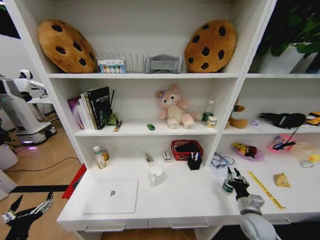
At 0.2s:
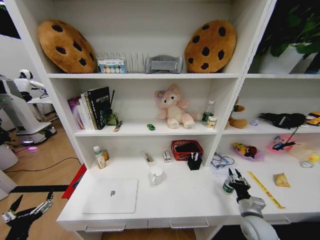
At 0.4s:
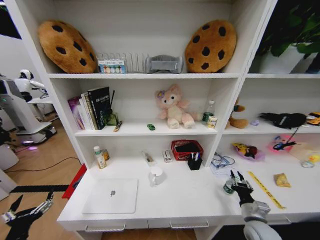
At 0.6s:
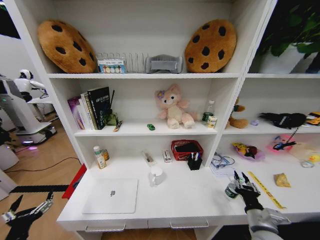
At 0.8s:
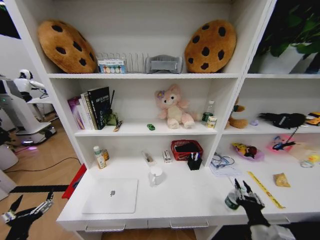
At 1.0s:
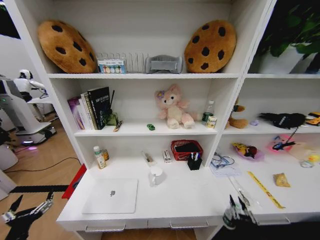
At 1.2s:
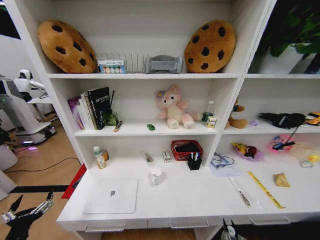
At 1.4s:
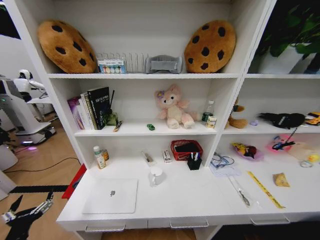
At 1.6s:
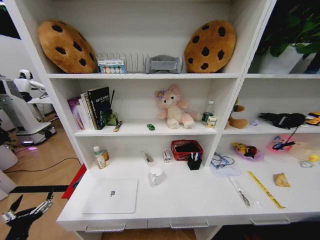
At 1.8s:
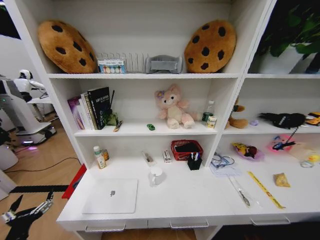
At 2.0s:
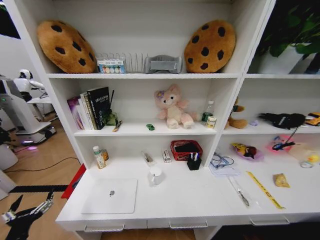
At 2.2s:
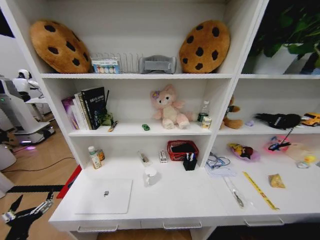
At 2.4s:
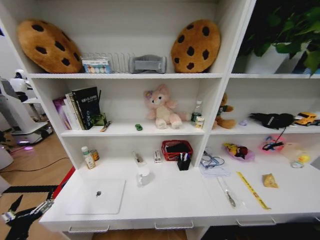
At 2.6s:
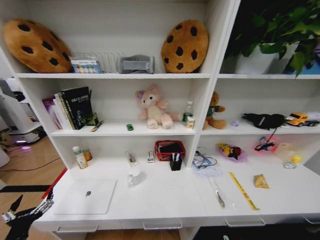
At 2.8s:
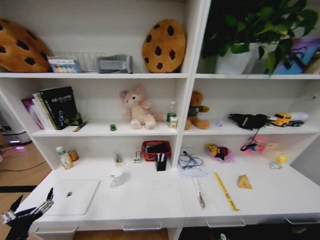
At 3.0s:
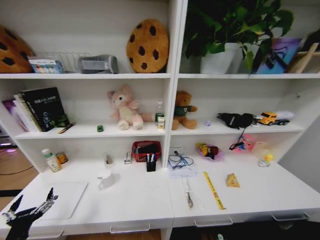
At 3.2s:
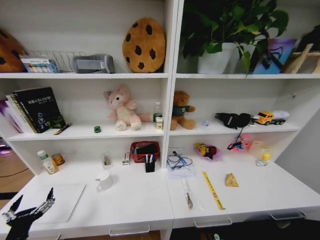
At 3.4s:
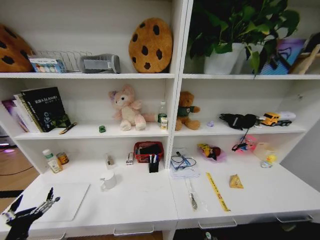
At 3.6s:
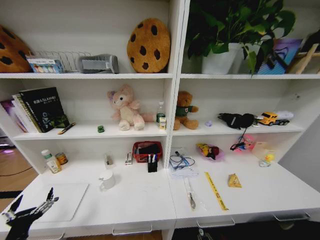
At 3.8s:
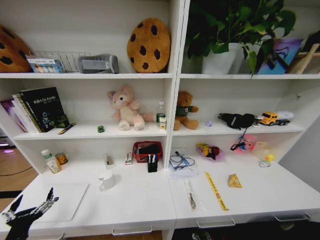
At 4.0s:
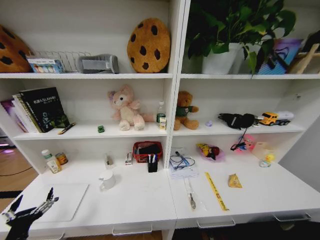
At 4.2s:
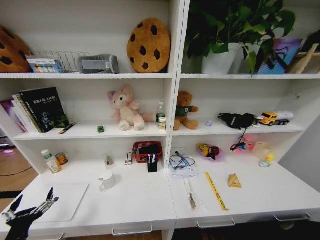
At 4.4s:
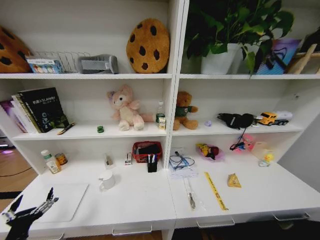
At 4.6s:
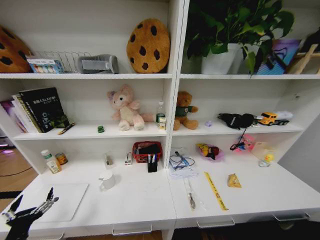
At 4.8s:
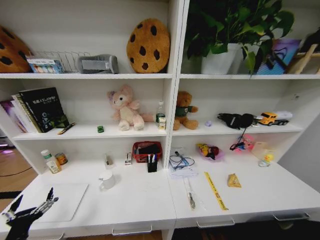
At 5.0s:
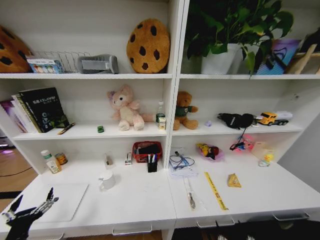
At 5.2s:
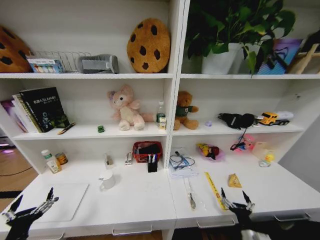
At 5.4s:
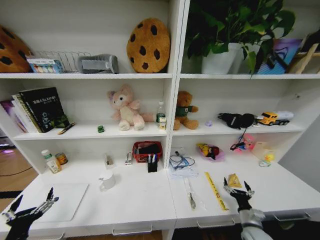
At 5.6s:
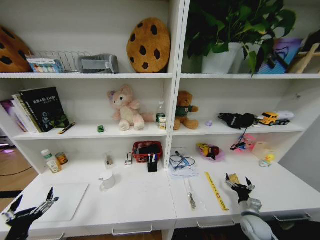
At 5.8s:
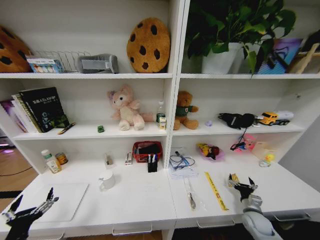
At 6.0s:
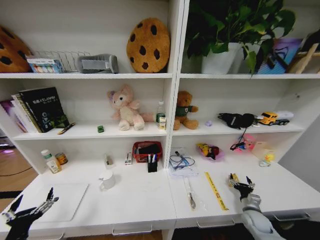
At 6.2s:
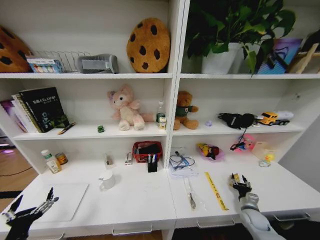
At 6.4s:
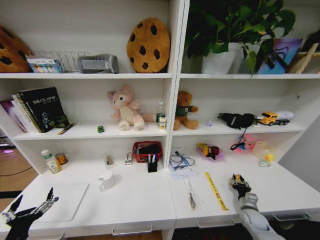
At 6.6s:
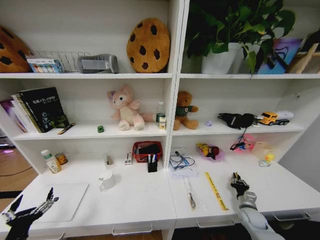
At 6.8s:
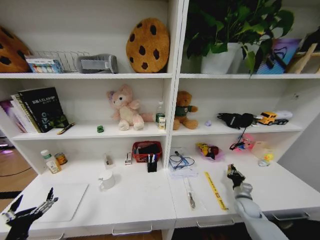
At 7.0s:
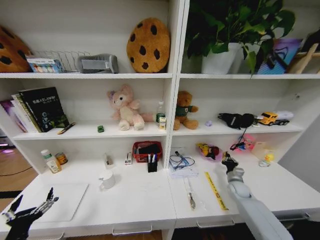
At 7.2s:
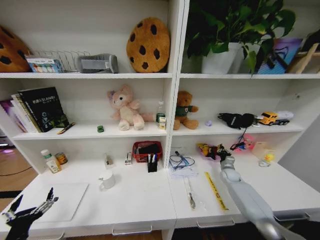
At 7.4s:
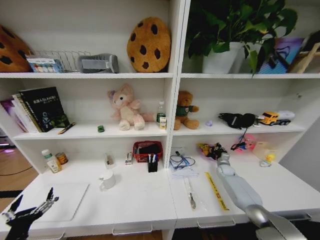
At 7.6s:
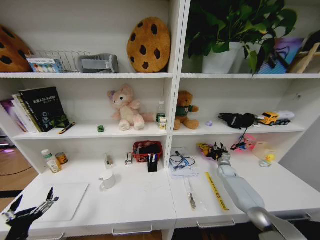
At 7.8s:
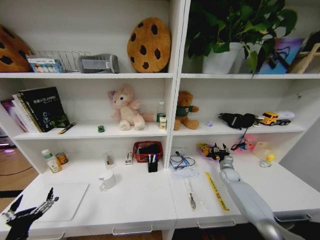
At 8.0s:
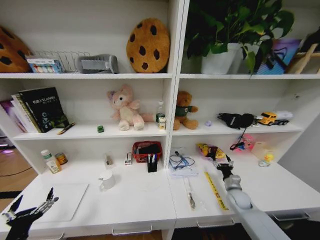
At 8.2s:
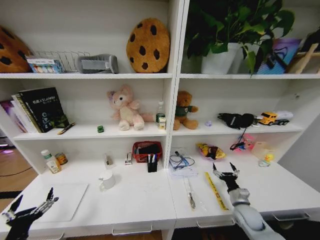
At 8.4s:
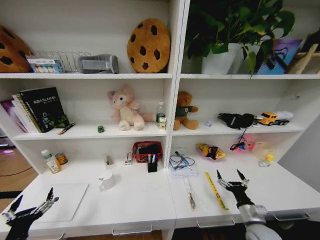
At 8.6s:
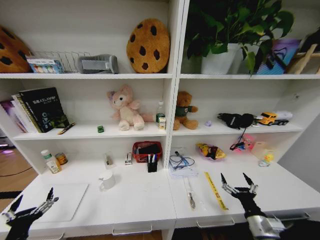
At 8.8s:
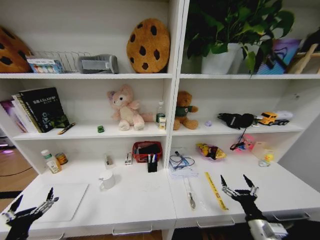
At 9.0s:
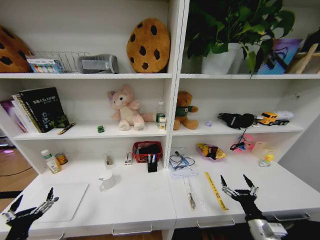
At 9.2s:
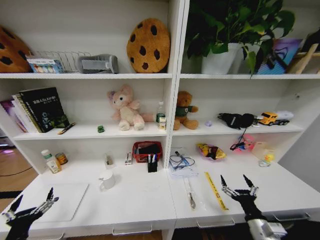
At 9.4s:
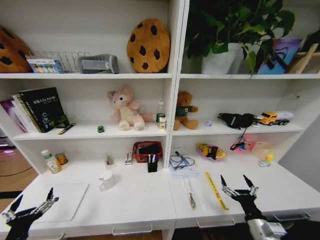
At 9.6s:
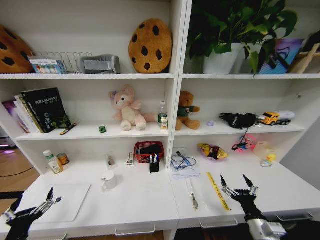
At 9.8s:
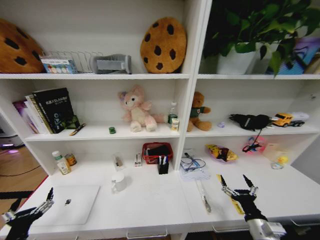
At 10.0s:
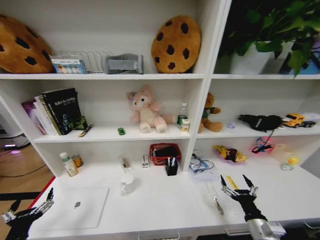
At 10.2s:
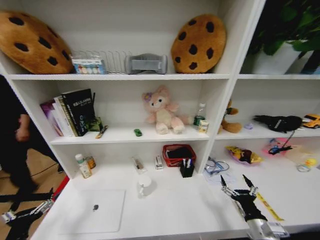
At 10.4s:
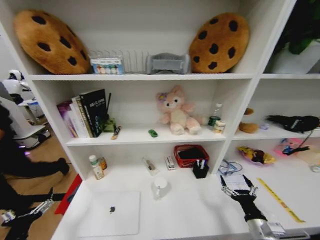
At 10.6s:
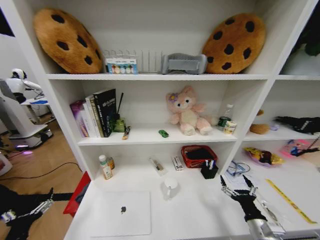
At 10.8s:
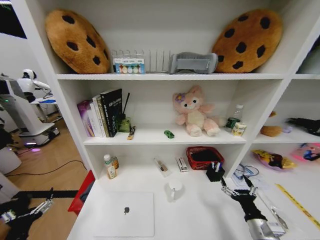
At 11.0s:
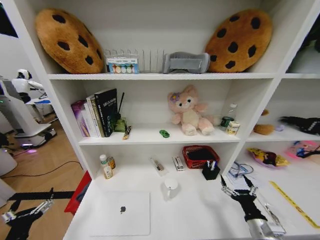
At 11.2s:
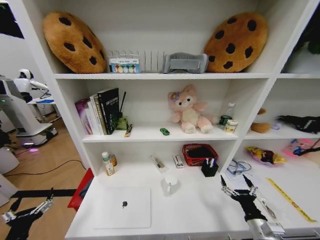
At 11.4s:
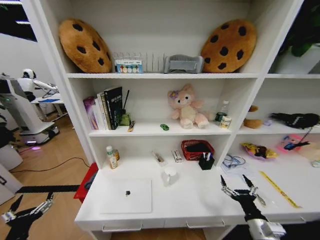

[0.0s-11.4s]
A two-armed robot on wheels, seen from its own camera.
Task of the whole recording: Organize the objects on the table.
0.0s to 1.4s: The right gripper goes roughly 30 cm backward and to the left.
1.4s to 2.8s: The right gripper goes about 25 cm downward and to the right.
2.8s to 4.2s: The right gripper changes place by about 5 cm, and opens.
4.2s to 5.6s: The right gripper is displaced upward and forward by approximately 35 cm.
5.6s to 7.2s: The right gripper moves forward, approximately 25 cm, and closes.
7.2s to 8.6s: The right gripper shifts some 30 cm backward, and opens up.
8.6s to 10.0s: The right gripper changes place by about 5 cm.
